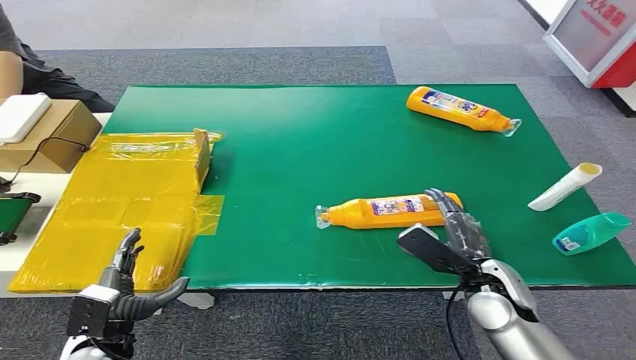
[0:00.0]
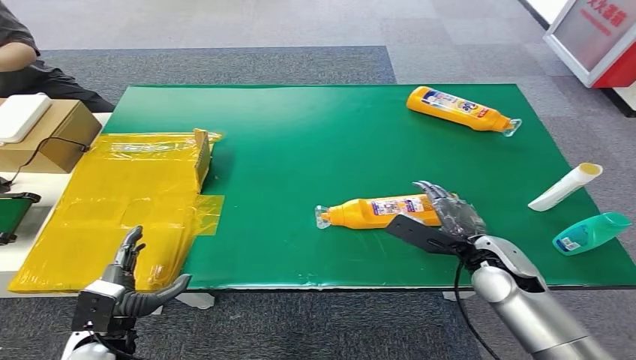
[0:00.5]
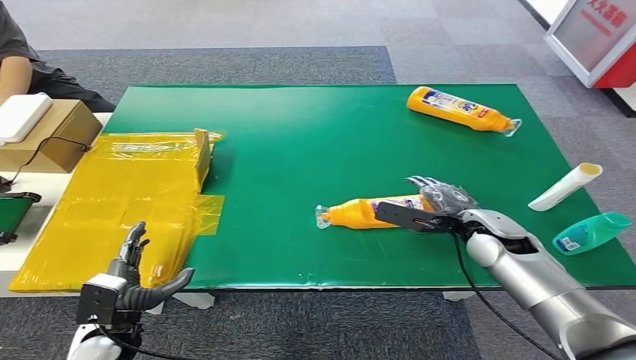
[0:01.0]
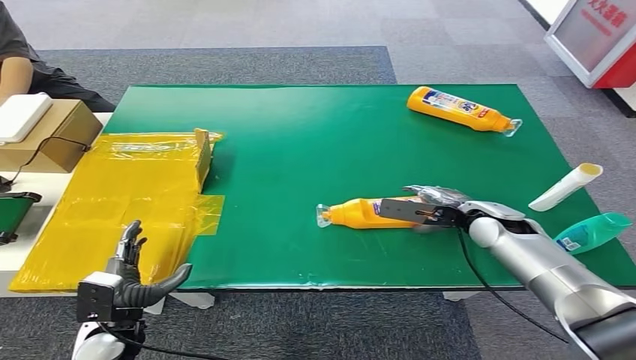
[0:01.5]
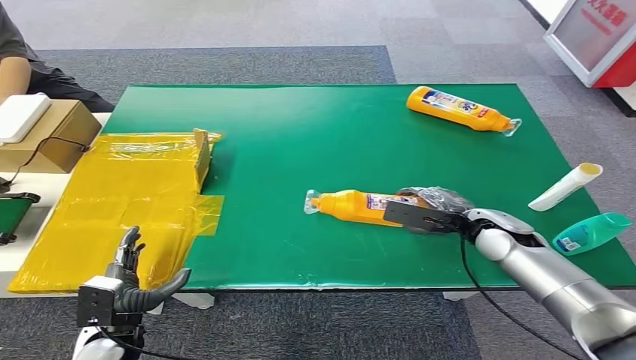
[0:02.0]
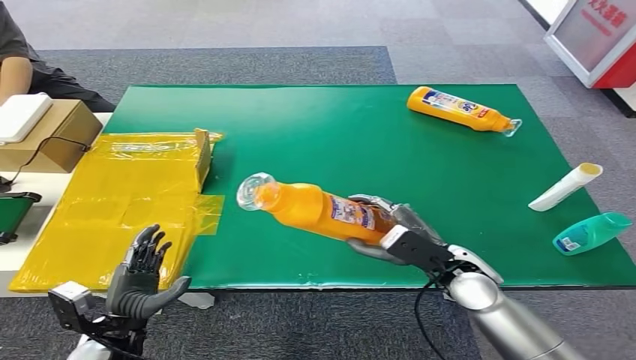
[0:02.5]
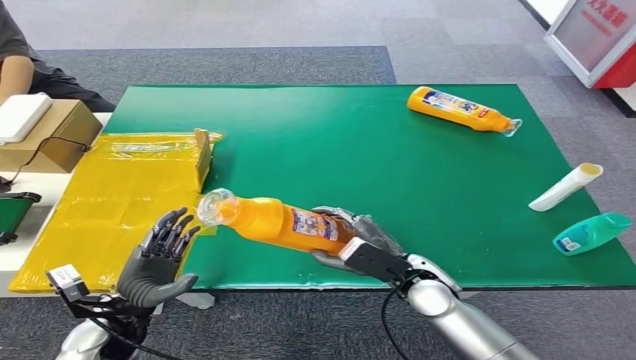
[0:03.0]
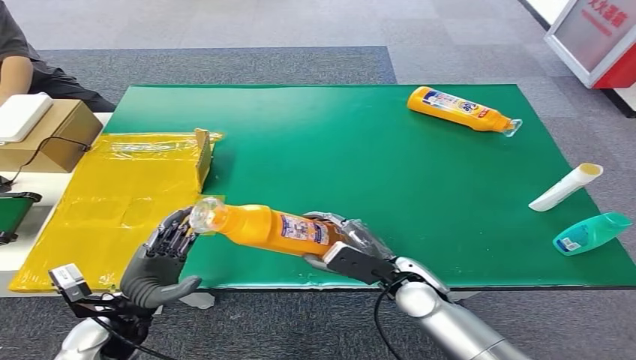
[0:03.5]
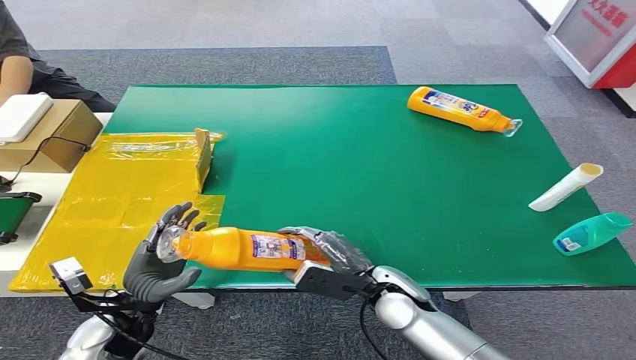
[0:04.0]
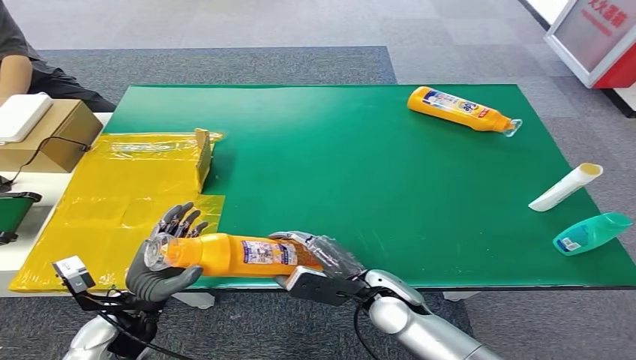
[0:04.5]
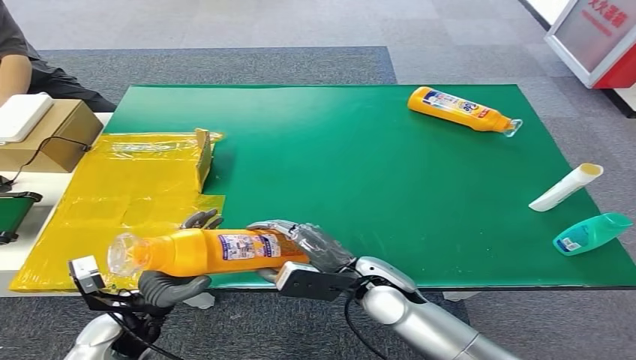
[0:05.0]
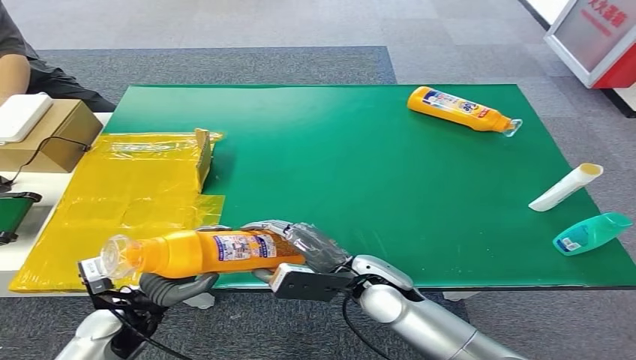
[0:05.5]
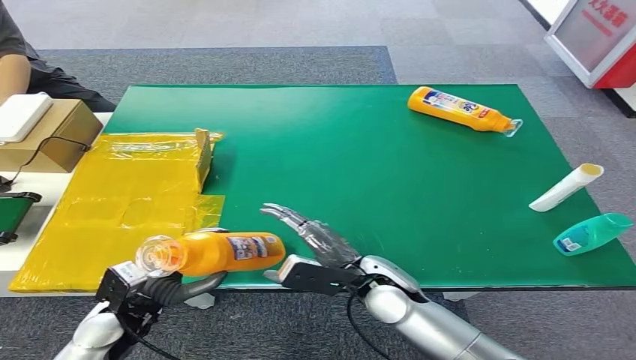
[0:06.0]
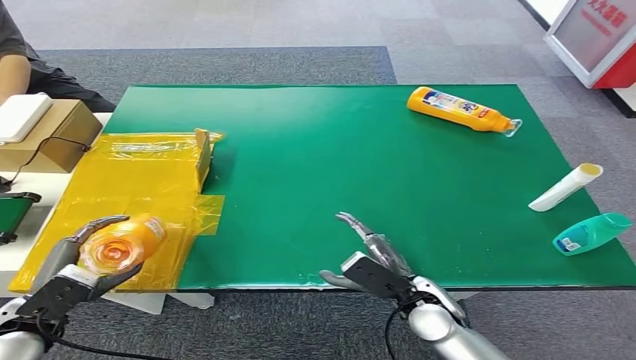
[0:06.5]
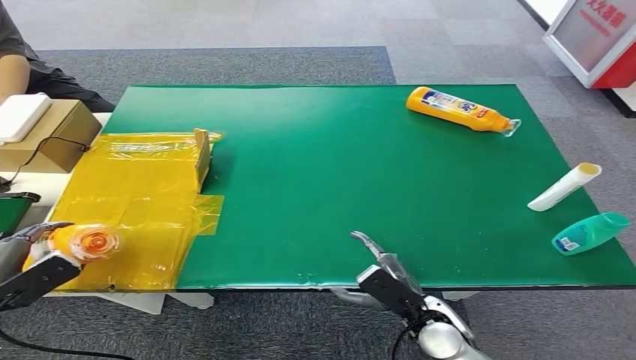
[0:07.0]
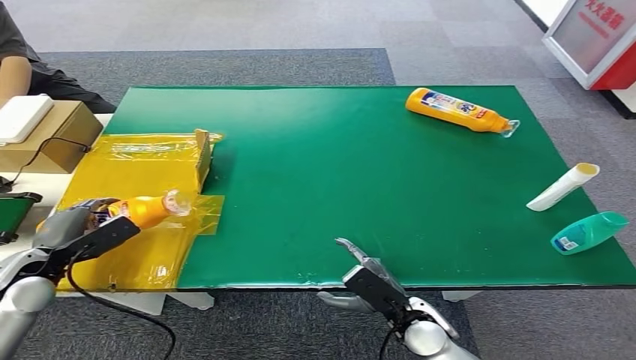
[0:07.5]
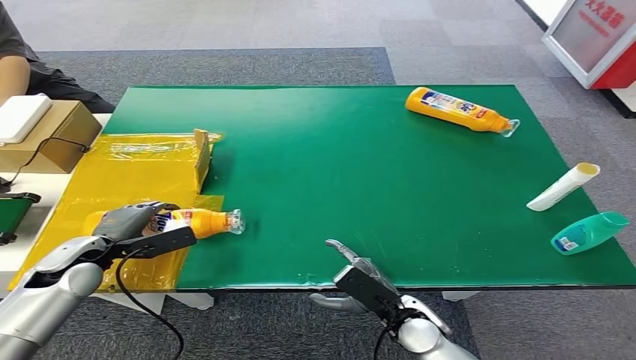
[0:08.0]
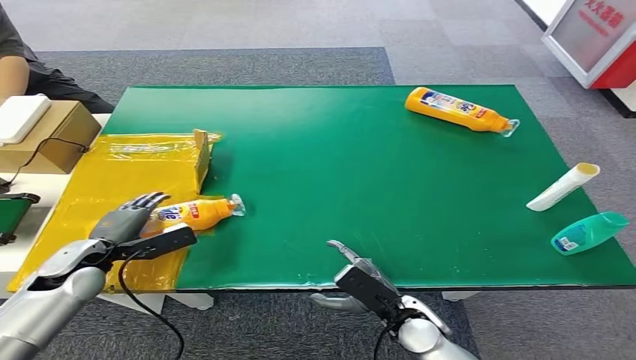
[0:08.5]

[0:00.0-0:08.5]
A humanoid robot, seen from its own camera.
Step, 0:00.0 to 0:02.0: Pick up the bottle from the table.
Step, 0:02.5 to 0:08.5: Turn the bottle to the front side.
0:02.0 to 0:04.0: The right hand moves to the left and backward, roughly 20 cm. Meanwhile the left hand moves upward, about 5 cm.
0:04.0 to 0:06.5: The left hand travels to the left by about 10 cm; the right hand changes place by about 5 cm.
0:06.5 to 0:08.5: The left hand goes approximately 10 cm forward. Meanwhile the right hand moves roughly 5 cm.
